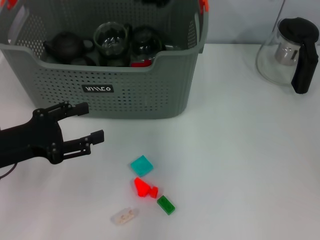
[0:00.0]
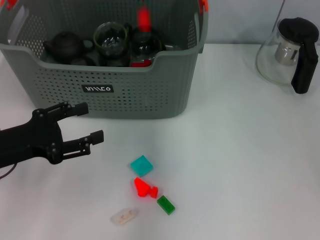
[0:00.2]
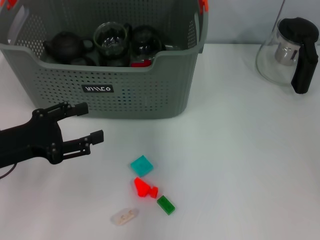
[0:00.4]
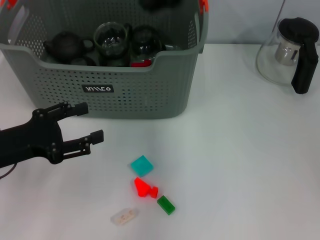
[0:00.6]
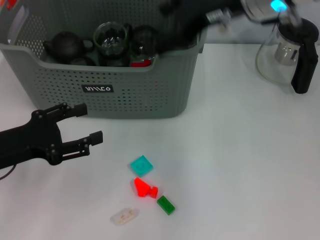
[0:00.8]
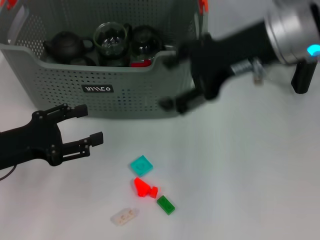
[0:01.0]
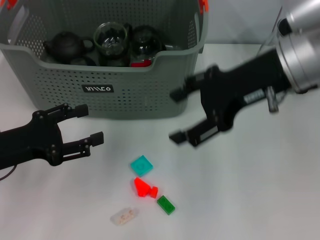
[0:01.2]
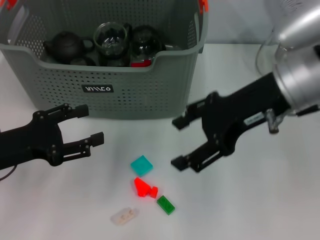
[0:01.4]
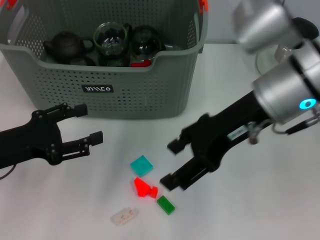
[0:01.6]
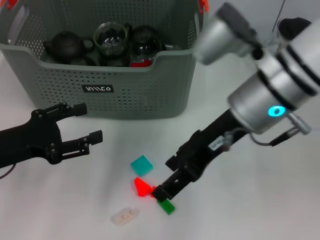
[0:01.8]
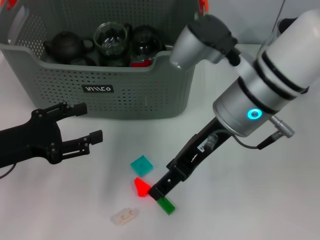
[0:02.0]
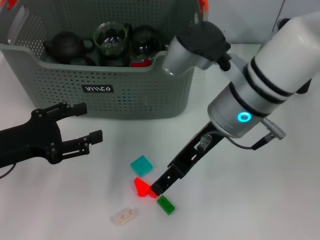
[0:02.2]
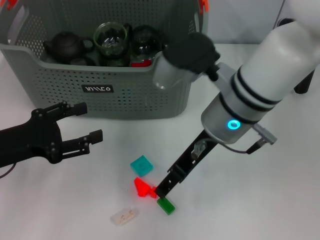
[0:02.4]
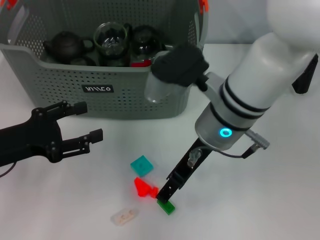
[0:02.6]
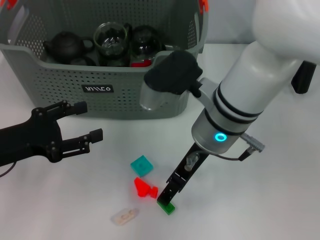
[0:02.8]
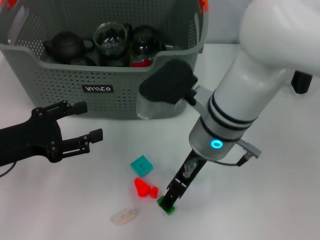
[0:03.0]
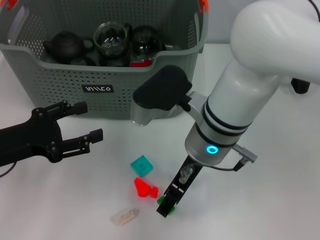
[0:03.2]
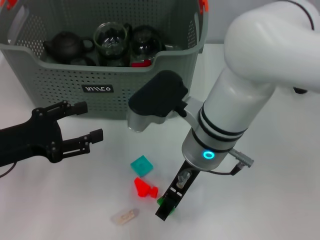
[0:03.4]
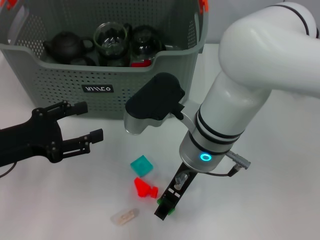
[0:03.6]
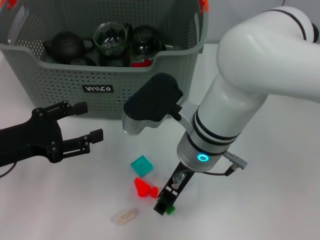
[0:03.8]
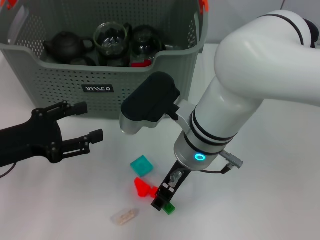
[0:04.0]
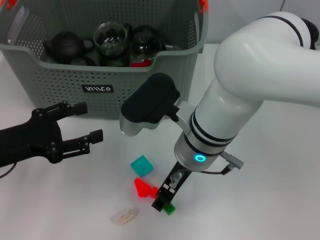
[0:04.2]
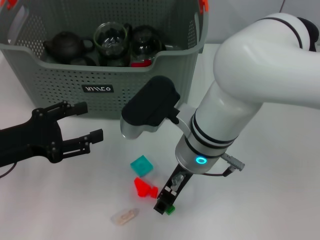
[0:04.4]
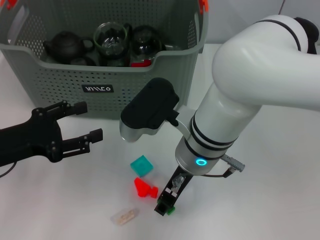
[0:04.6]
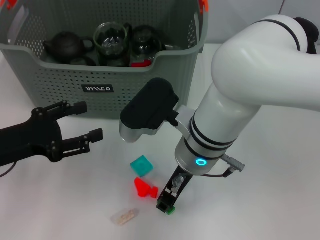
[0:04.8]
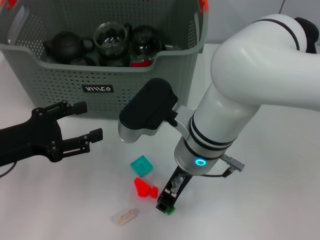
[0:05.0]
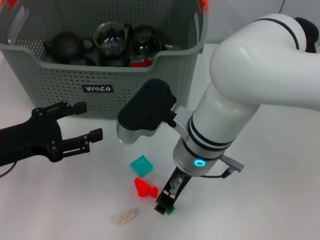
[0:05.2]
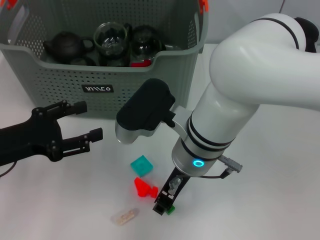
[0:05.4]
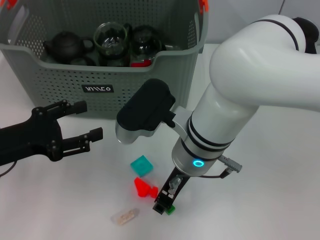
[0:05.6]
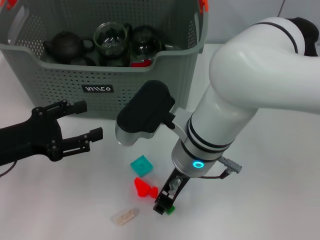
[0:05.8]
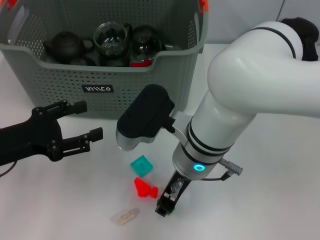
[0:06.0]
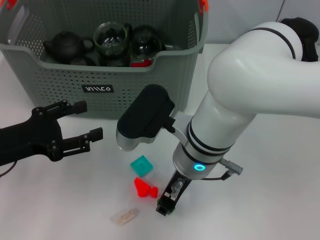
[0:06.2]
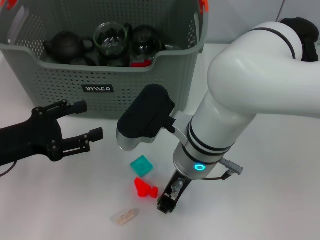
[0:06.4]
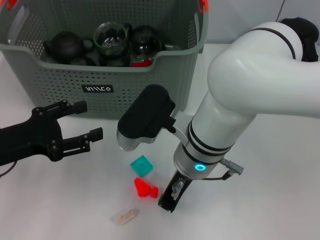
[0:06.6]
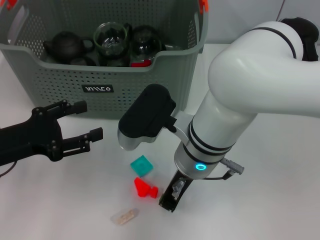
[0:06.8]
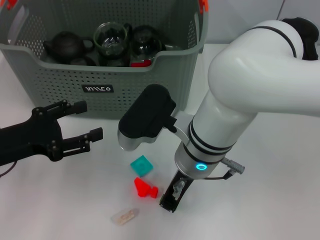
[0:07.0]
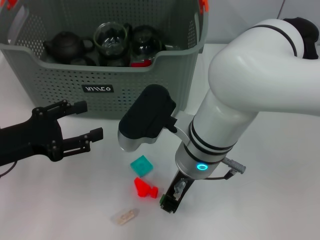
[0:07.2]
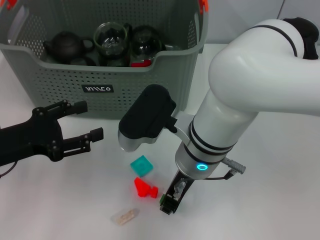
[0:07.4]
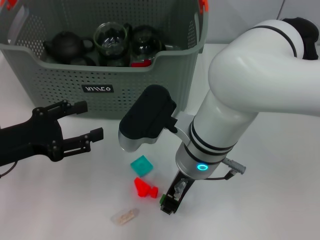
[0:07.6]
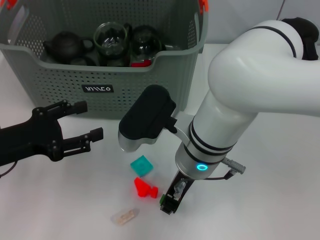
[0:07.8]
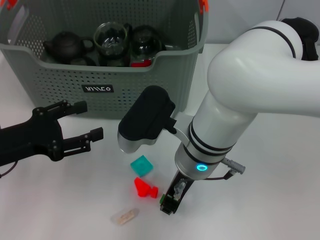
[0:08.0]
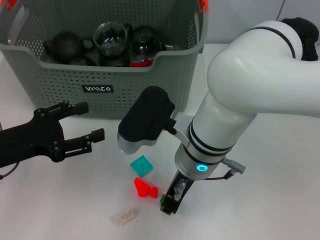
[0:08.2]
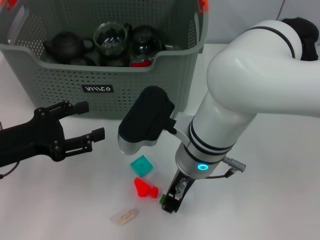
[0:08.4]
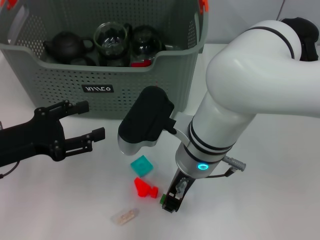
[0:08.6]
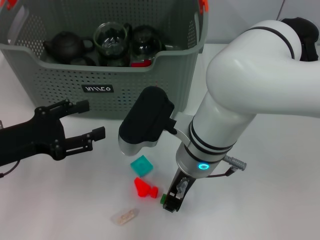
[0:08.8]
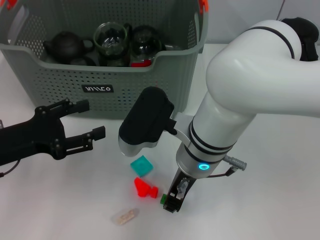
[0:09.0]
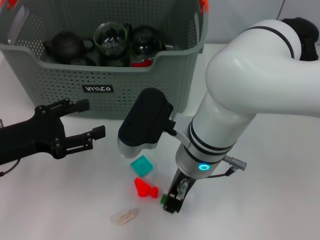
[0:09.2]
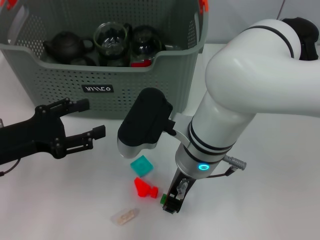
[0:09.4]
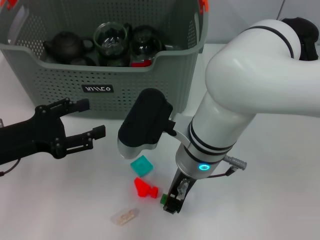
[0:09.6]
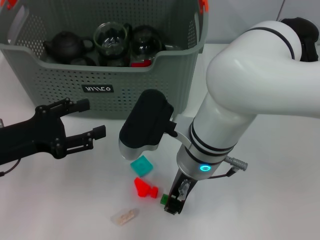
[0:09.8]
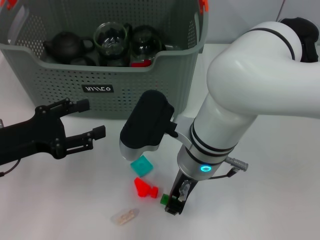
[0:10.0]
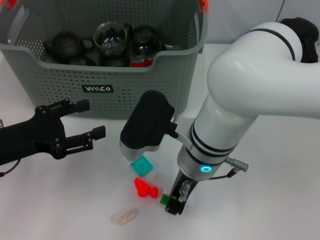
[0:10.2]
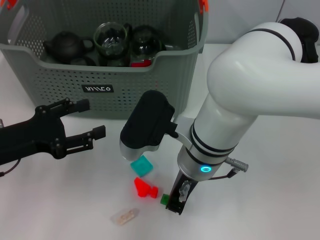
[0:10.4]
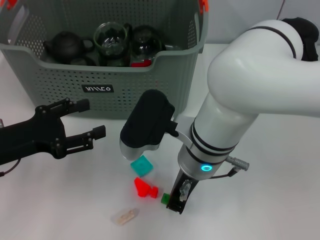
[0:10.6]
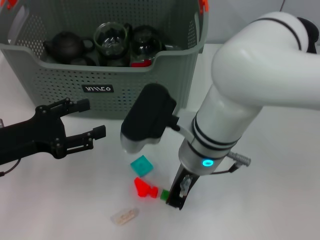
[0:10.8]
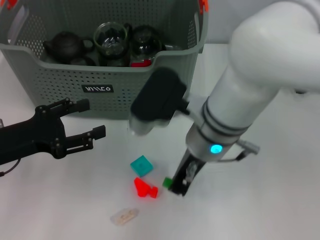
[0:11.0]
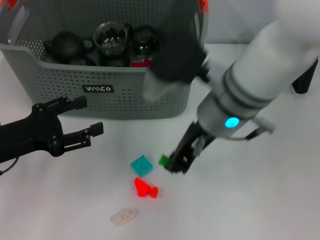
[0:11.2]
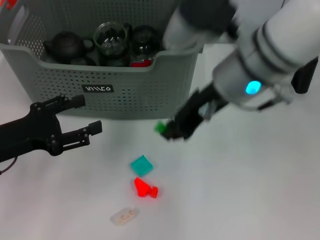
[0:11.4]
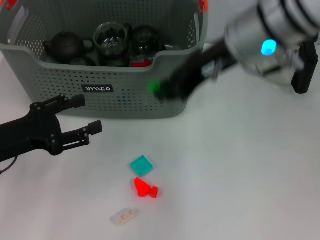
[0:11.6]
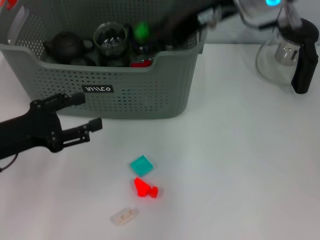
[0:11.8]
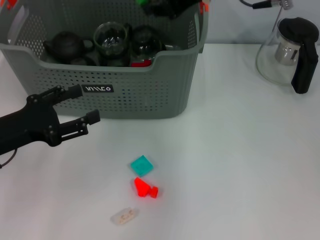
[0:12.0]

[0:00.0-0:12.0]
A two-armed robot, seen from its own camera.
Task of the whole recording: pick up the teacup on the table and place it into the storage bin, pick up the block on the table and place it into the storage bin.
Step, 0:00.6 to 0:10.4: Grasp the green block with right gripper.
0:00.0 to 0:01.6: The right gripper is displaced backward and downward by about 10 cm, and opens its fingers.
0:01.6 to 0:03.0: The right gripper heads to the left and downward, covering approximately 10 cm.
0:03.0 to 0:04.4: The grippers make only small movements.
0:04.4 to 0:06.0: Neither gripper changes place.
0:06.0 to 0:07.6: Neither gripper changes place.
0:07.6 to 0:09.0: Both grippers stay about where they are.
0:09.0 to 0:10.4: The two grippers keep their place.
0:10.4 to 0:12.0: The right gripper moves upward, forward and to the right, some 20 cm.

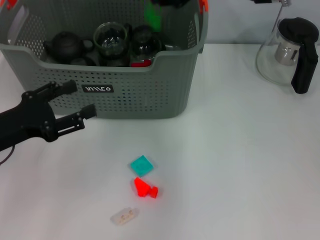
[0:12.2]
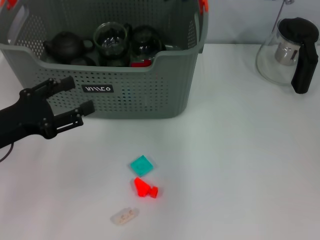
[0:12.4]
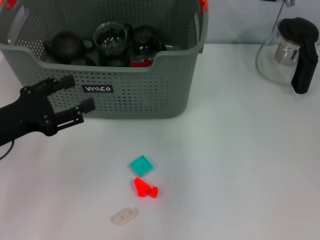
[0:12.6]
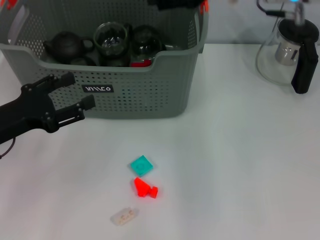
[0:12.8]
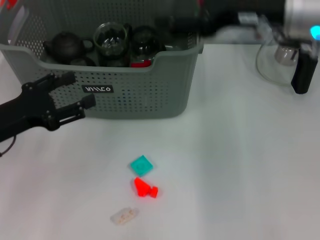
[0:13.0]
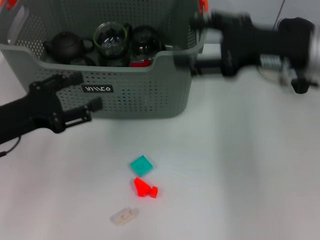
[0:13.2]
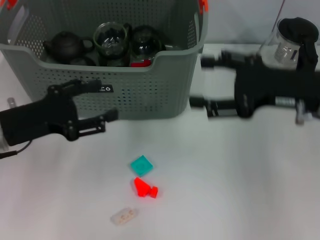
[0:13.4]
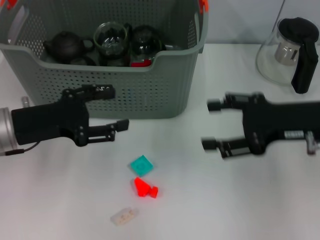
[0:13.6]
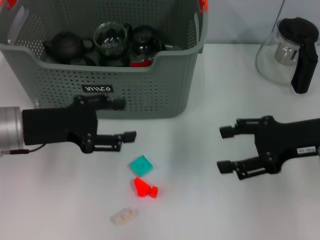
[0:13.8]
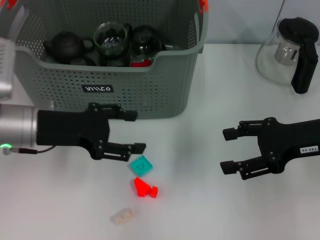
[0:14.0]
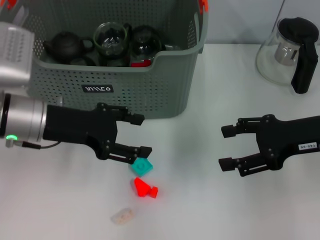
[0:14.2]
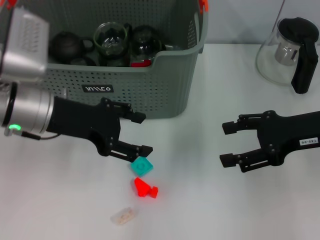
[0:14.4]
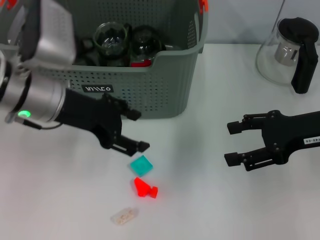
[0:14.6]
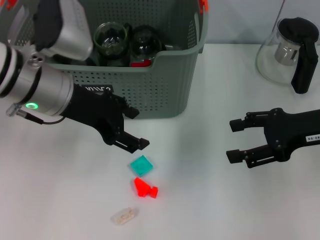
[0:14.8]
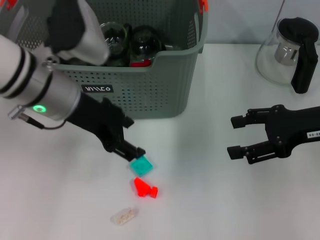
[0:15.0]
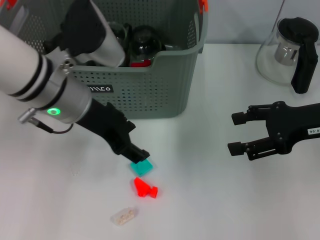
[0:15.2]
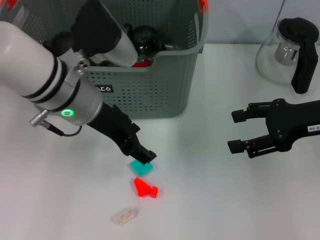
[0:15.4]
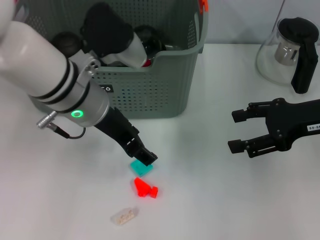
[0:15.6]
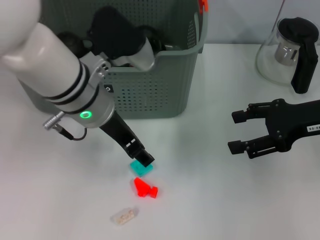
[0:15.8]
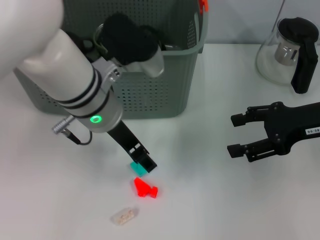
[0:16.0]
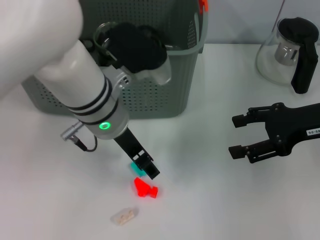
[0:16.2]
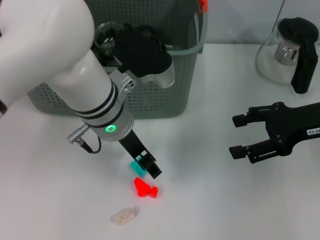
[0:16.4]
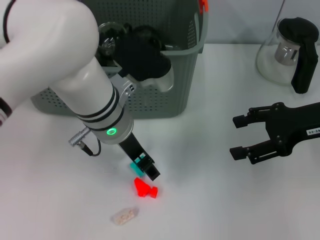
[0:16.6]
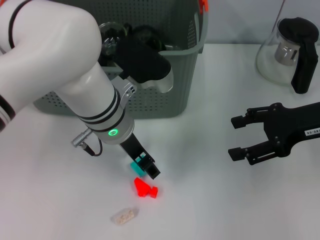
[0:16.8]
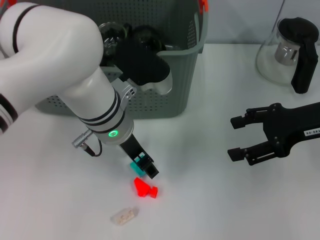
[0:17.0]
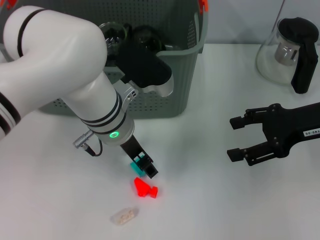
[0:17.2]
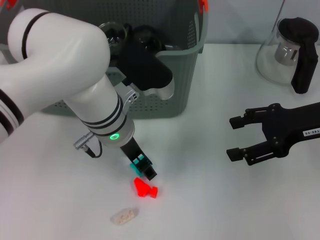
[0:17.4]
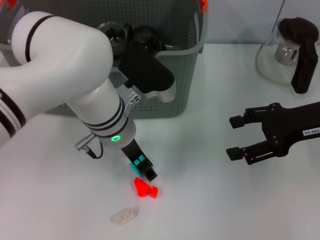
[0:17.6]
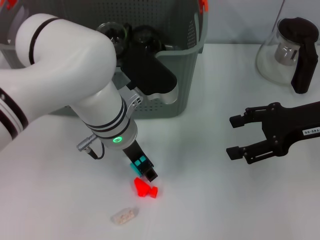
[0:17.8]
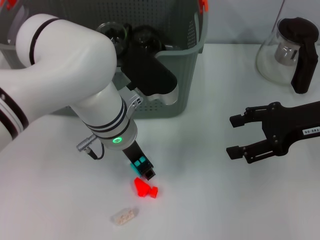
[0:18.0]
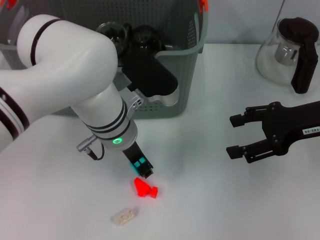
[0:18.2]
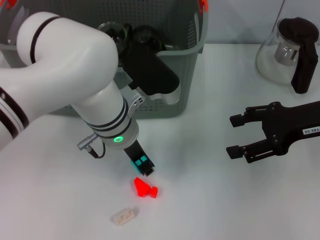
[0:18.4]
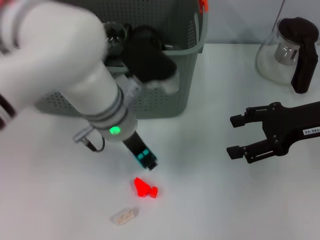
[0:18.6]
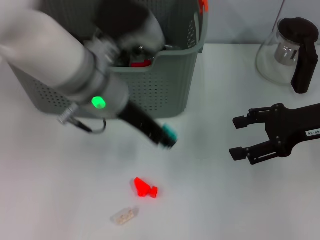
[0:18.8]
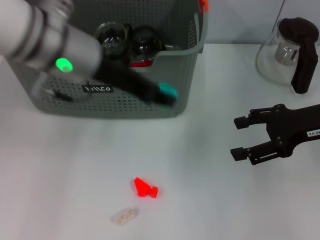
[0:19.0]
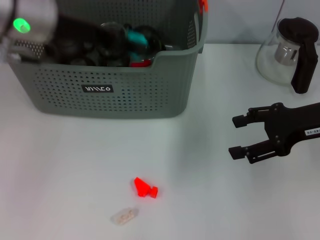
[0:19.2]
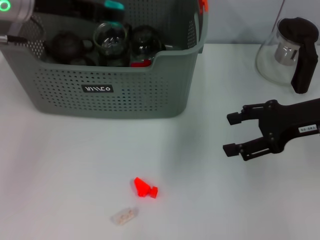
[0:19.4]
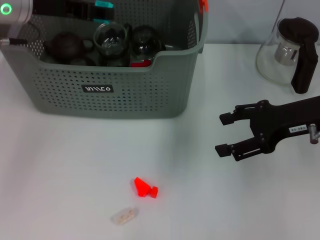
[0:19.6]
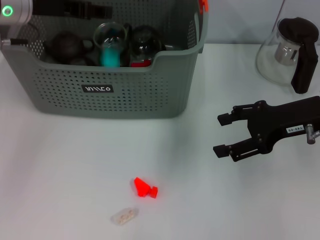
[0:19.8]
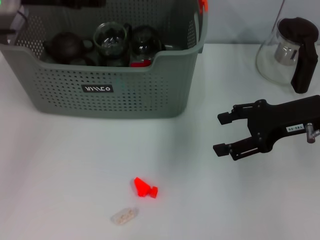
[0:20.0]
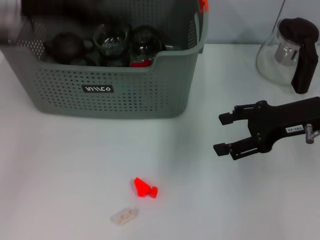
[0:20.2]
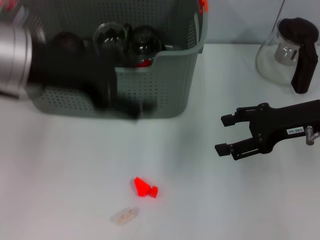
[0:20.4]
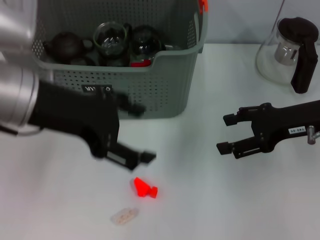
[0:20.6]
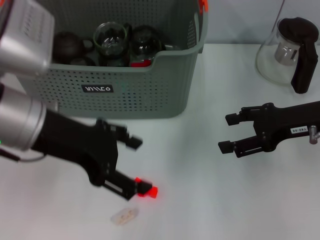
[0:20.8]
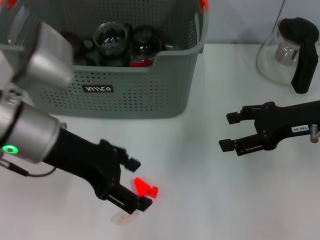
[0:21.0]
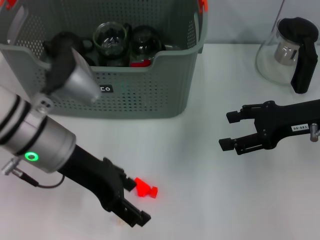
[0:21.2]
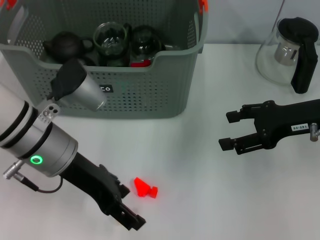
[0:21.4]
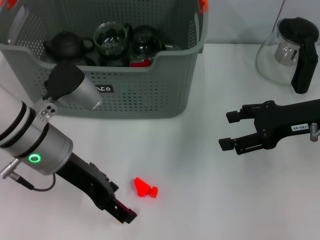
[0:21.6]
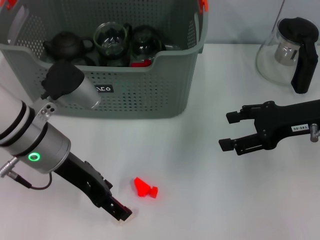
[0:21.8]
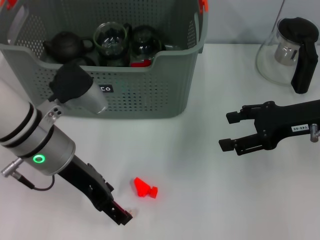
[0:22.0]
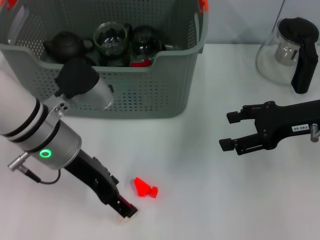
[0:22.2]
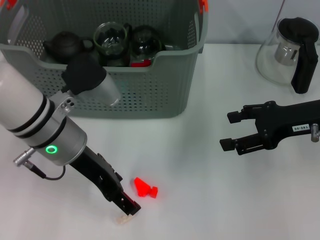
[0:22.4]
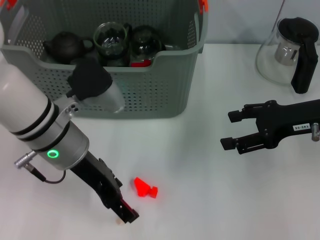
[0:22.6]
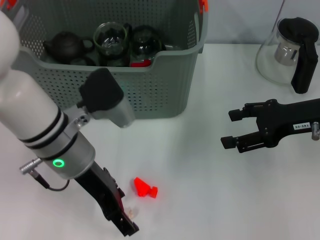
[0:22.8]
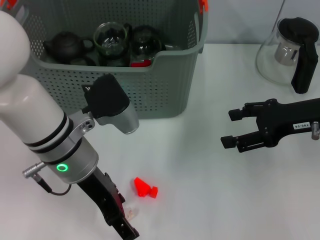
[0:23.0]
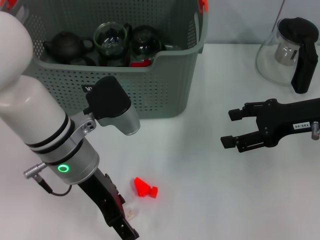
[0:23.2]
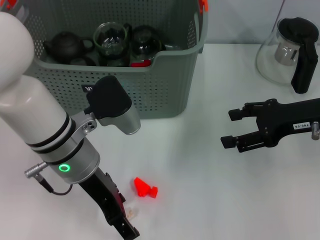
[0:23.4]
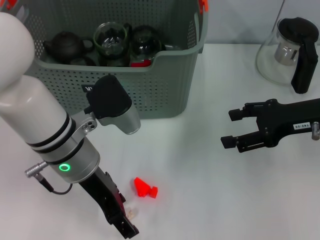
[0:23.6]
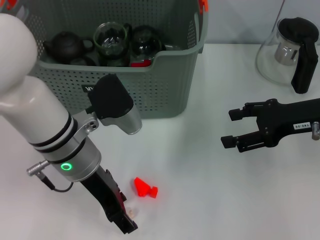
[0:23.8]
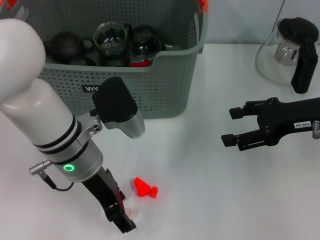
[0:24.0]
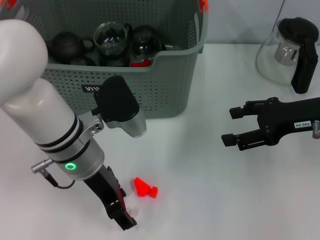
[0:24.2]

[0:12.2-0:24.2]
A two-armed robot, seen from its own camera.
Task of the whole recording: pick up the teacup on the table and place it into the storage bin, pick up the block on the table and place it into the storage bin.
Step, 0:12.6 to 0:18.2: Grasp the light blue block with left gripper.
Step, 0:18.4 to 0:19.8: Place the light blue block in the storage box with left gripper.
0:12.2 to 0:13.8: The left gripper ends up roughly 5 cm from where it was; the right gripper moves downward, to the right and backward, about 25 cm, and opens up.
0:13.8 to 0:15.2: The left gripper travels to the right and upward by some 15 cm.
0:15.2 to 0:16.6: The left gripper heads to the right, covering roughly 5 cm.
0:16.6 to 0:18.2: The grippers move only a little.
0:18.2 to 0:19.8: The left gripper travels to the left, upward and forward by some 20 cm.
0:19.8 to 0:21.2: The left gripper goes approximately 15 cm backward, downward and to the right, and opens up.
0:21.2 to 0:22.6: The grippers make only small movements.
0:22.6 to 0:24.2: The grippers make only small movements.
